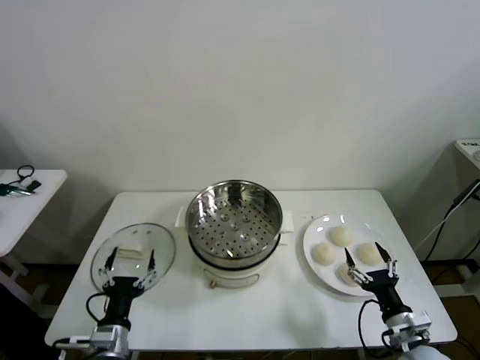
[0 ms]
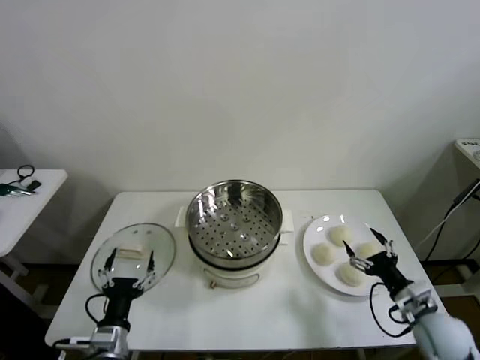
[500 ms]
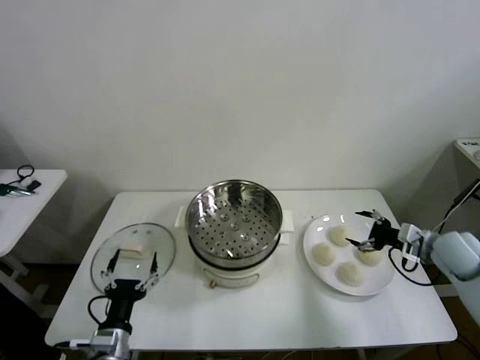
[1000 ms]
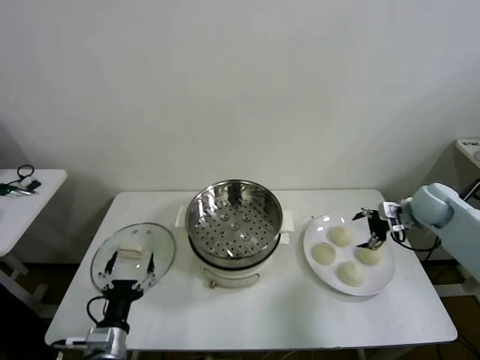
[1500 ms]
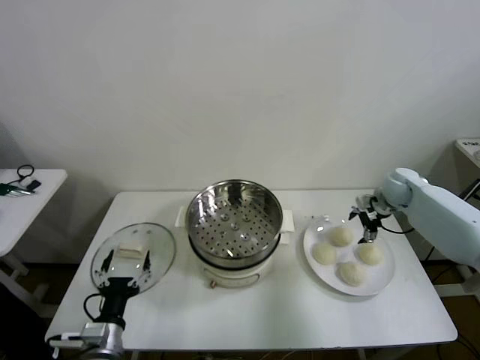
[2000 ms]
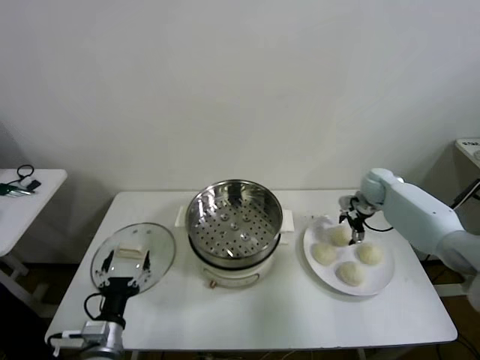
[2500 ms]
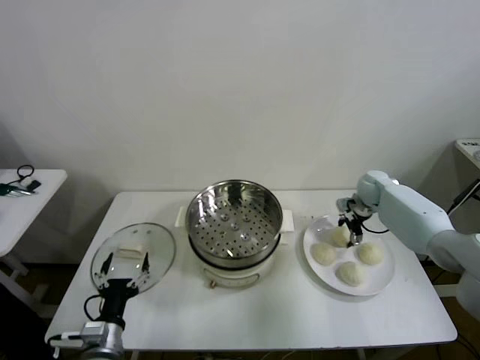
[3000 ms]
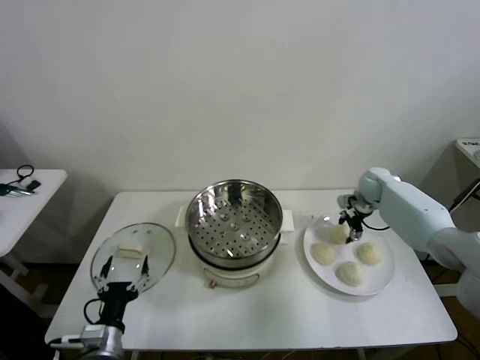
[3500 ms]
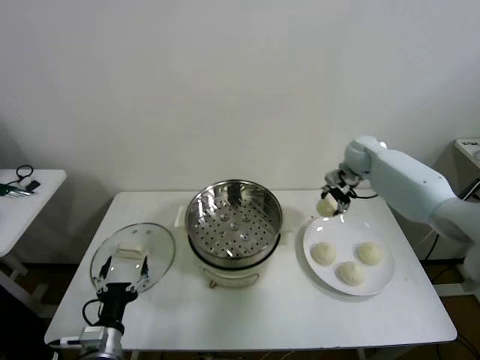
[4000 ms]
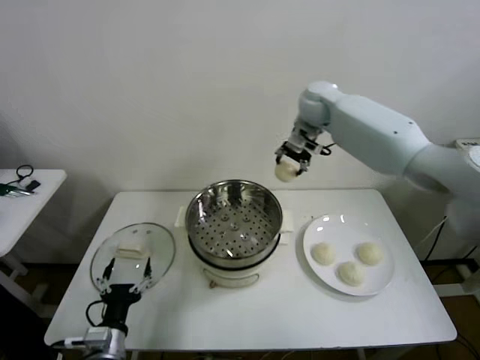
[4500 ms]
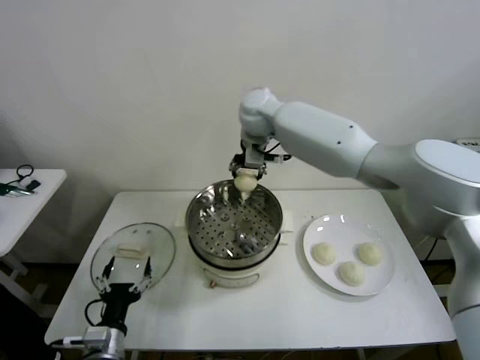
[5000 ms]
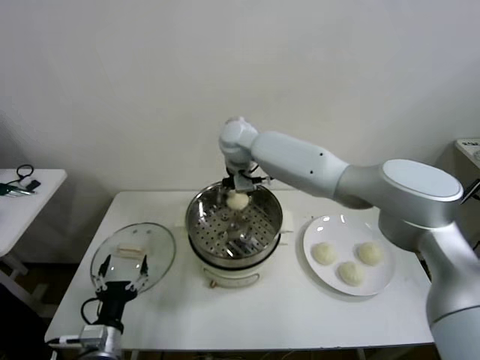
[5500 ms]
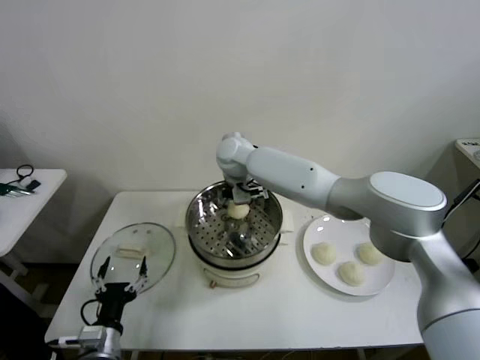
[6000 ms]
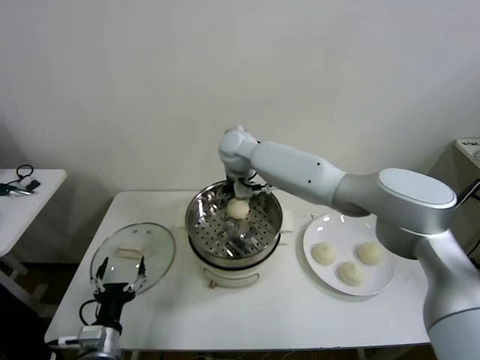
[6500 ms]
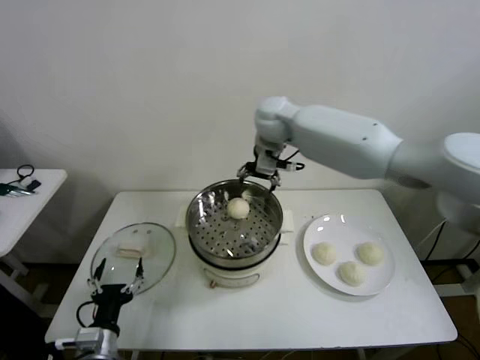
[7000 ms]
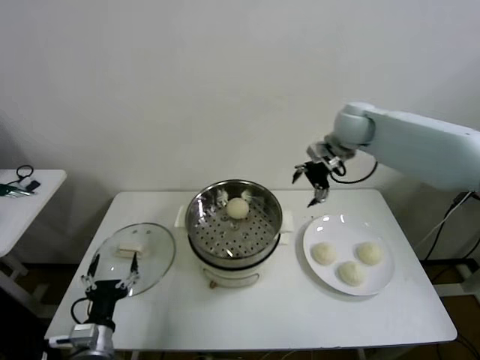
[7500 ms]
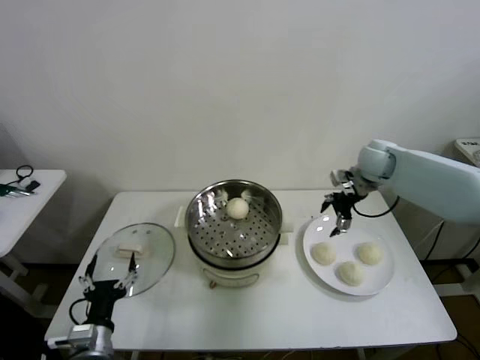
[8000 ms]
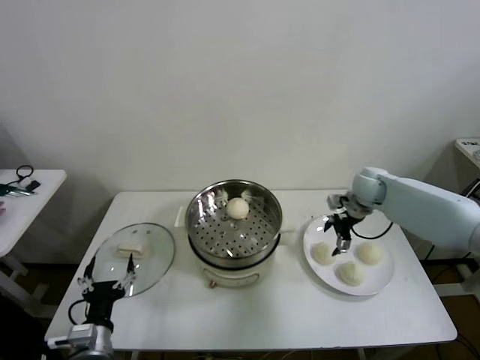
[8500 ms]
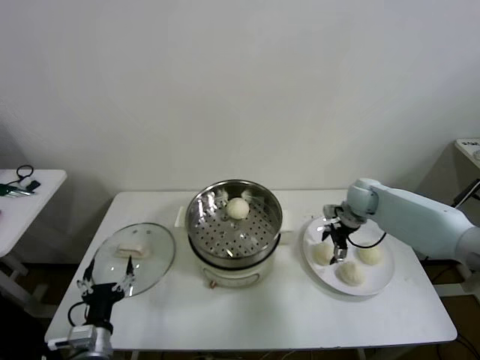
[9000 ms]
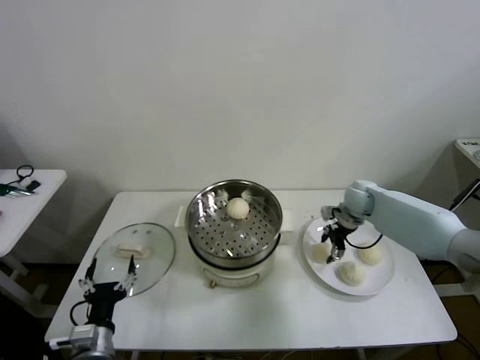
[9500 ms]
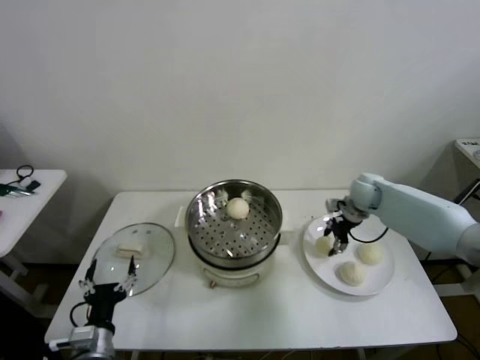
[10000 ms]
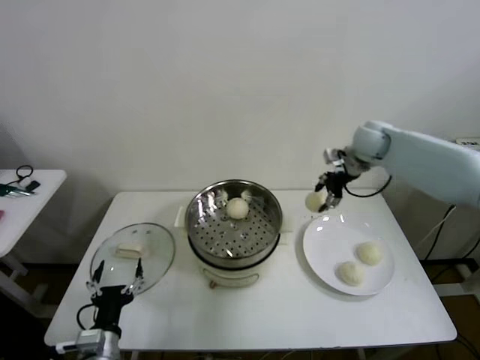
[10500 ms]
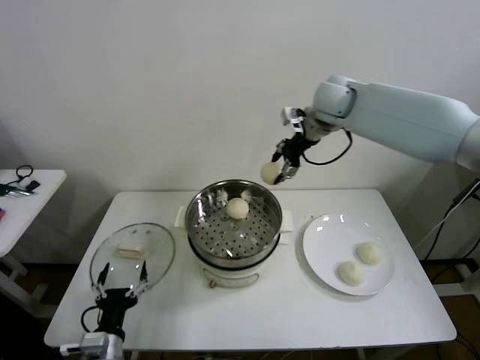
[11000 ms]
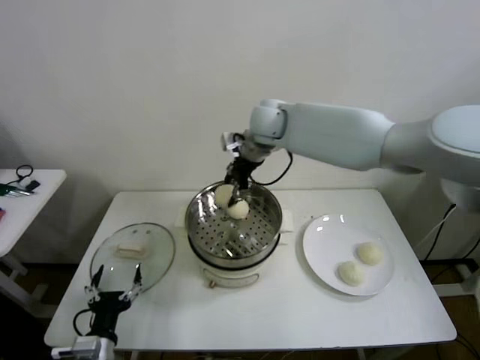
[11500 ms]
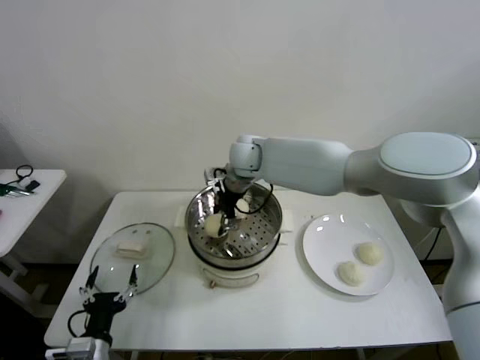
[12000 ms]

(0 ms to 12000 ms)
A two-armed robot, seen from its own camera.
Step, 0 ms - 3000 ms: Grasp the baozi in the plate with right gripper.
Step, 3500 ms - 6000 ms: Place the baozi on the steamer with right gripper.
Step, 6500 ms - 9500 ms: Grasp the baozi in the plate with right gripper.
2000 ms - 4000 ms: The right gripper heads to the left, upward and forward, covering some 15 cm, and closes its fingers.
4000 ms - 6000 ms: The right gripper travels to the left by some 30 cm, and opens its fingers.
6000 ms - 8000 ms: The right gripper goes roughly 35 cm to the right.
8000 ms - 10000 ms: The right gripper is displaced downward by about 10 cm, and closes its fingers.
10000 ms - 12000 ms: The right gripper is displaced to the left by about 30 cm.

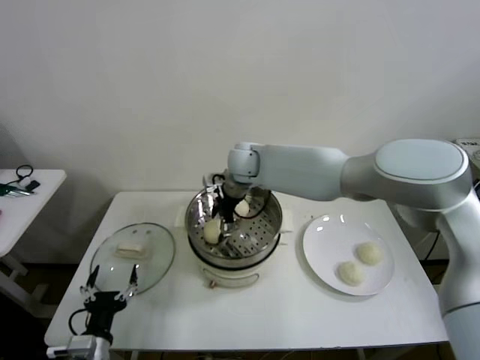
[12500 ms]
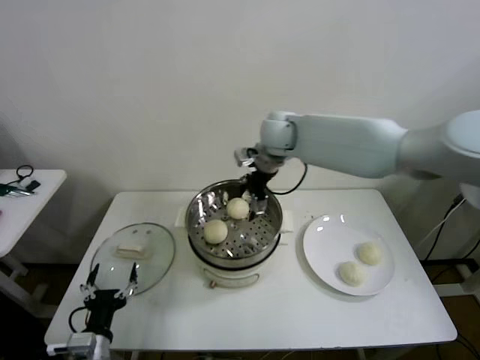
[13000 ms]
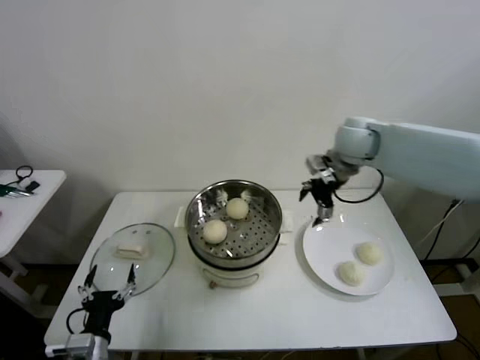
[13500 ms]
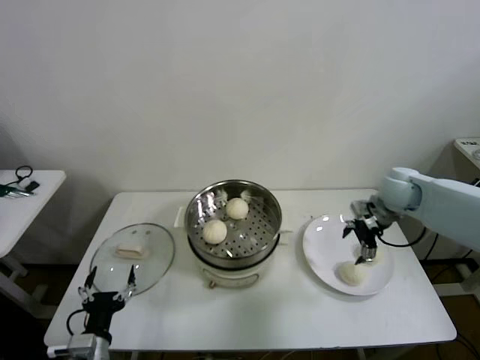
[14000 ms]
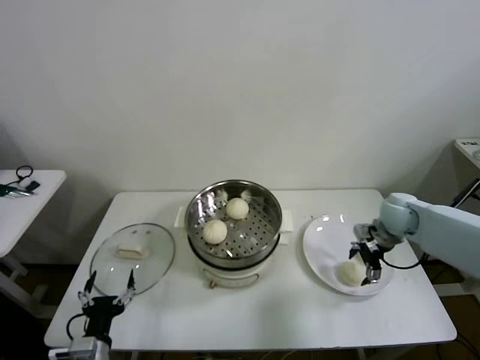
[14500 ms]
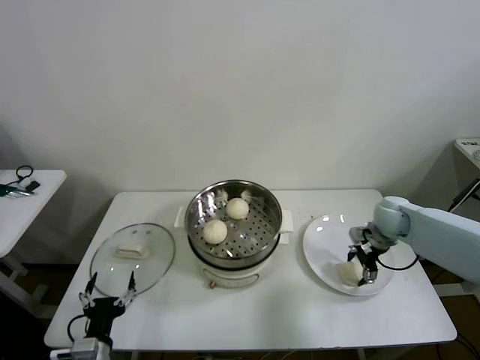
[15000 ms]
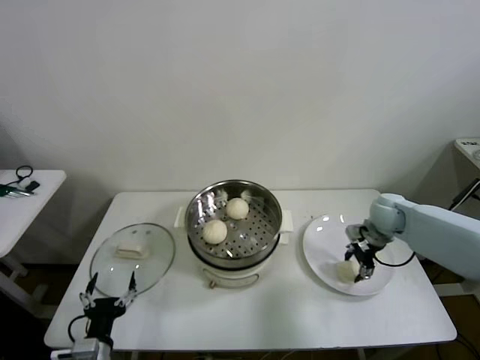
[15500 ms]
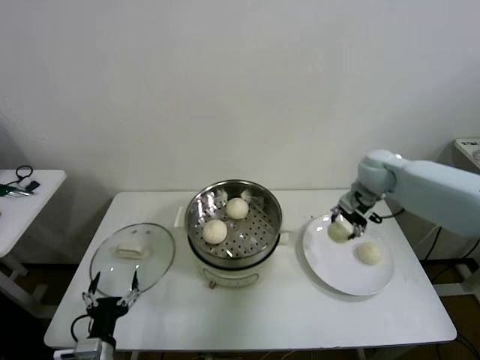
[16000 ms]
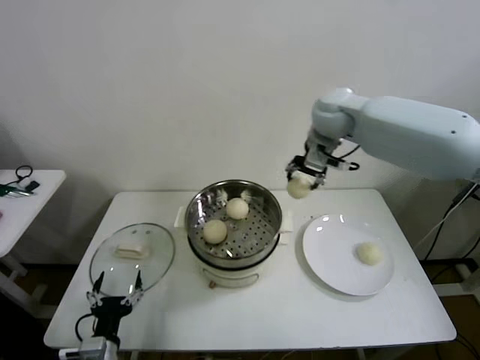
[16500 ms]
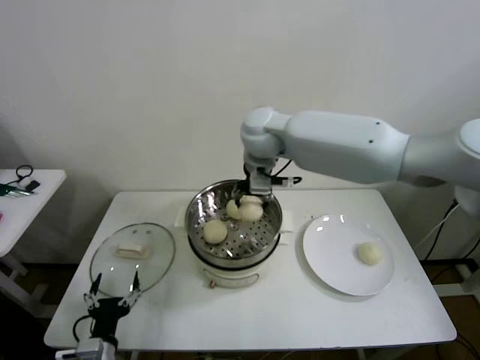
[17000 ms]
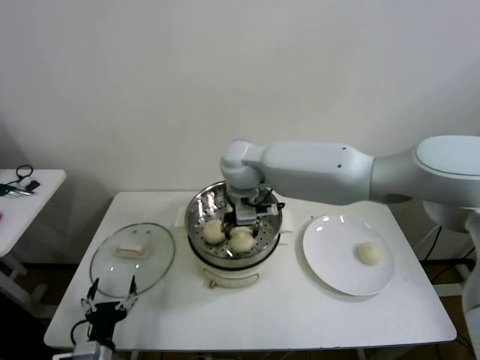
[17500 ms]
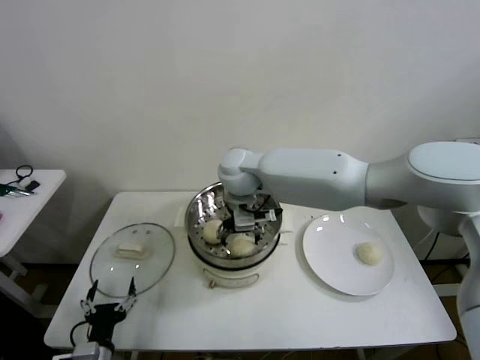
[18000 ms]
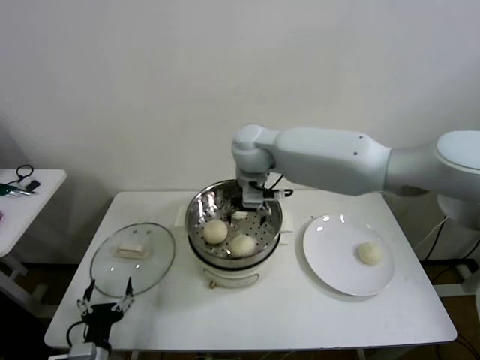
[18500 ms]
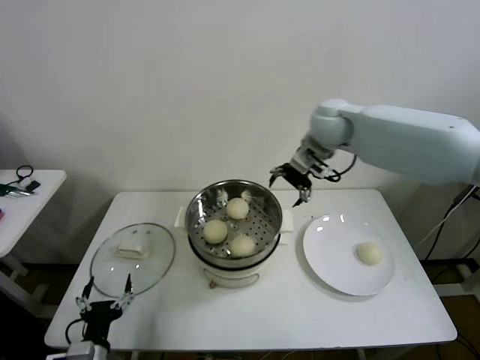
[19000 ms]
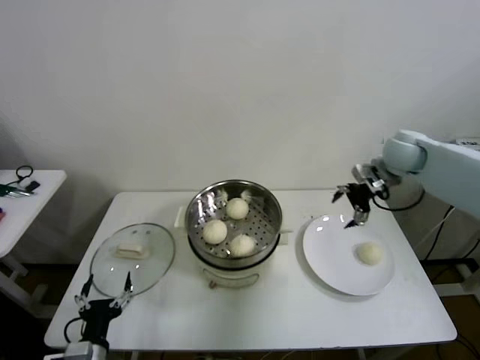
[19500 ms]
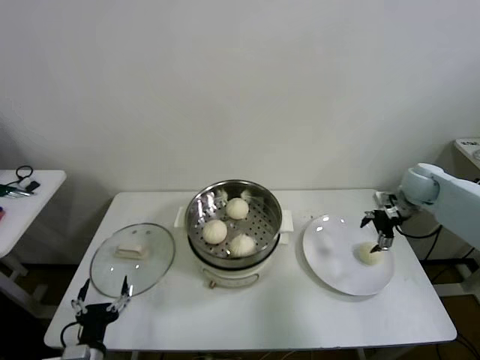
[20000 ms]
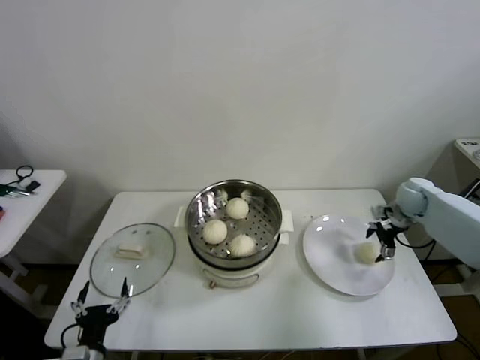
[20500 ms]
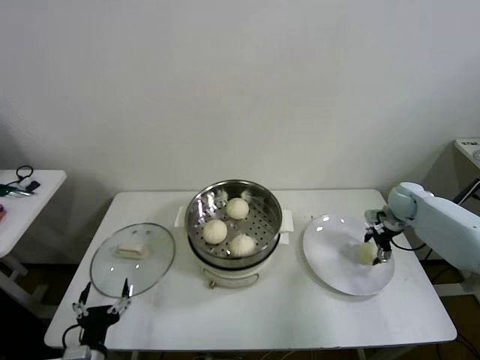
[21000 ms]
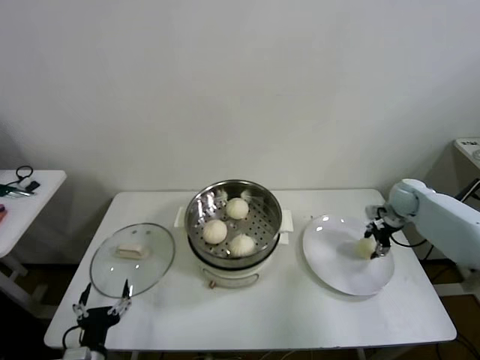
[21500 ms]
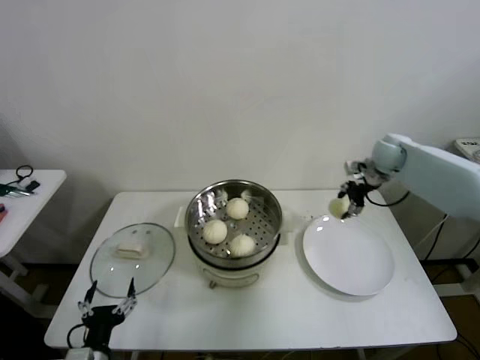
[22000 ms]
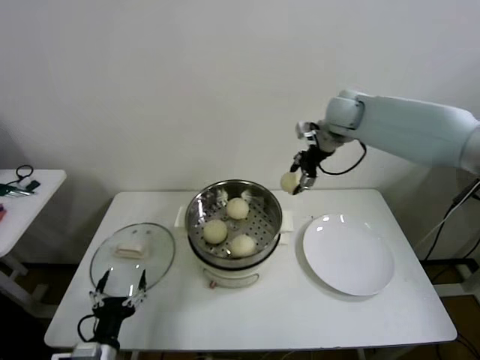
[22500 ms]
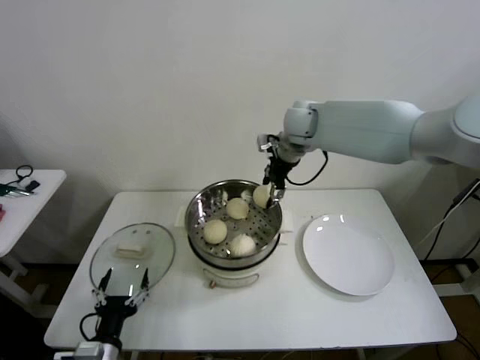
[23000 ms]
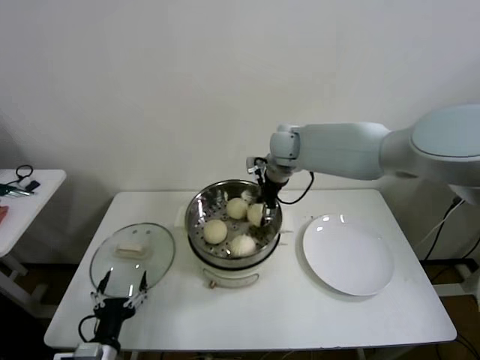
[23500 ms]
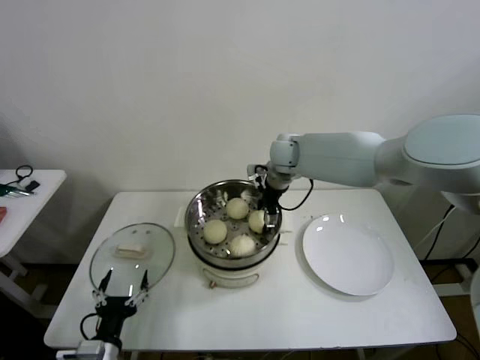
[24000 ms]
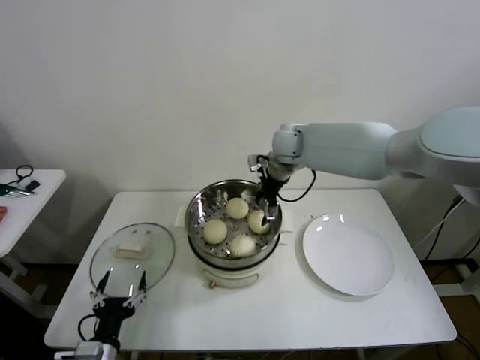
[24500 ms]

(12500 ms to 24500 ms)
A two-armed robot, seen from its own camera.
Step, 12500 ms - 15000 ms: Grasp the baozi in the plate with right gripper.
Step, 15500 ms - 17500 ms: Place the baozi on the steamer with right gripper.
Step, 18000 ms - 21000 ms: Grasp the baozi in the plate with right gripper.
Step, 21500 ms - 23500 ms: Place the baozi on the steamer with right gripper.
12500 ms - 14500 ms: The right gripper shifts approximately 35 cm to the right.
14500 ms - 16500 ms: The right gripper heads upward and to the left, covering approximately 30 cm, and closes.
16500 ms - 18500 ms: The right gripper is displaced to the left and downward by some 15 cm, and opens its fingers.
18500 ms - 20500 ms: The right gripper travels to the right and downward by about 50 cm.
20500 ms - 22500 ms: The right gripper travels to the left and upward by approximately 30 cm, and closes its fingers.
22500 ms - 24500 ms: The right gripper shifts some 15 cm to the left and downward, and opens its fingers.

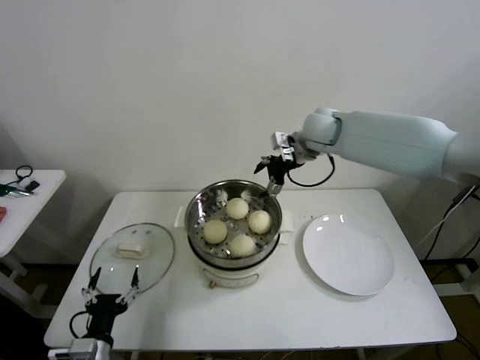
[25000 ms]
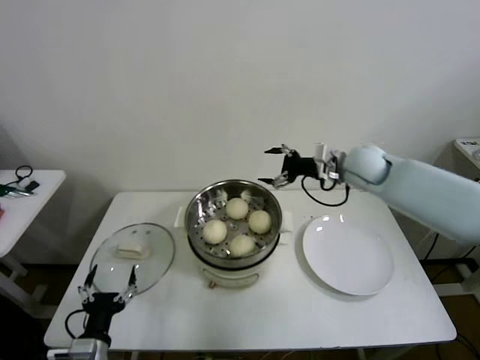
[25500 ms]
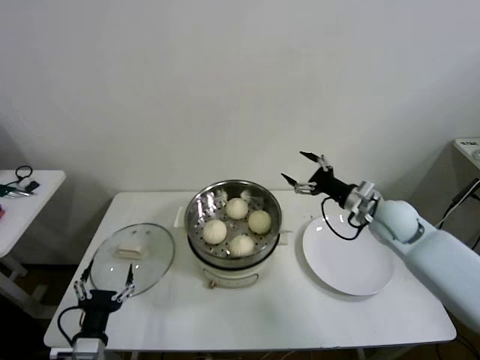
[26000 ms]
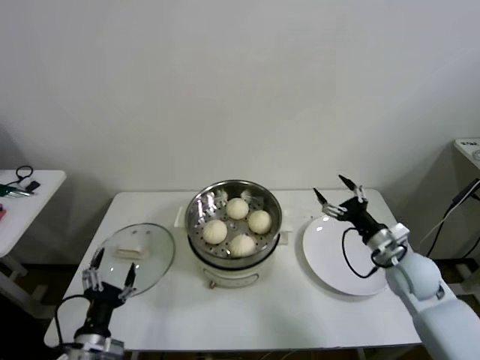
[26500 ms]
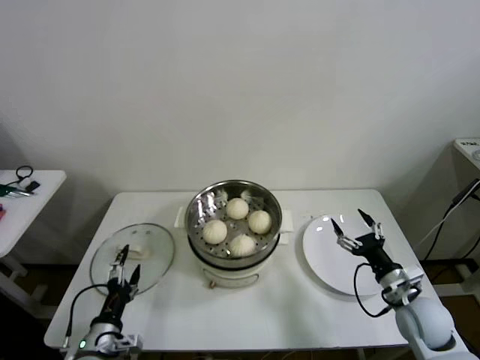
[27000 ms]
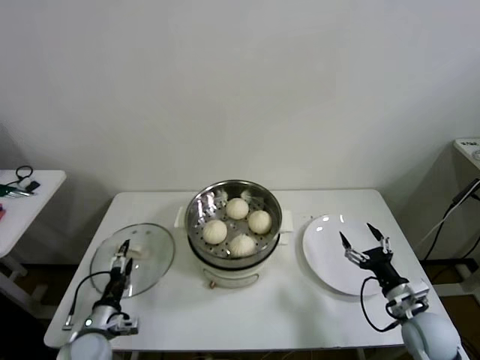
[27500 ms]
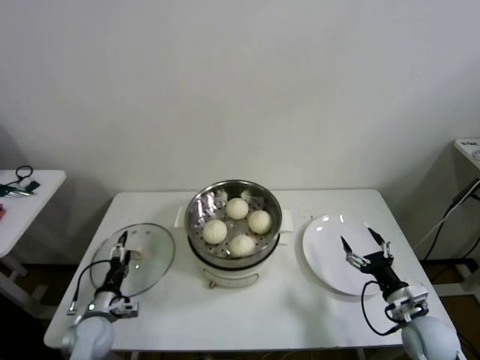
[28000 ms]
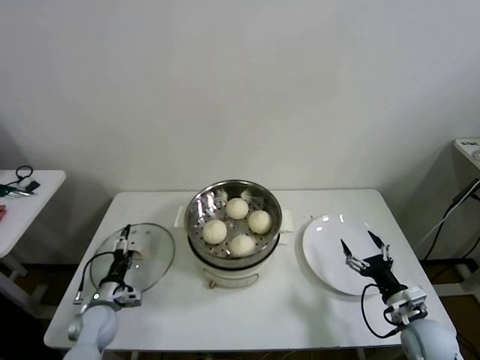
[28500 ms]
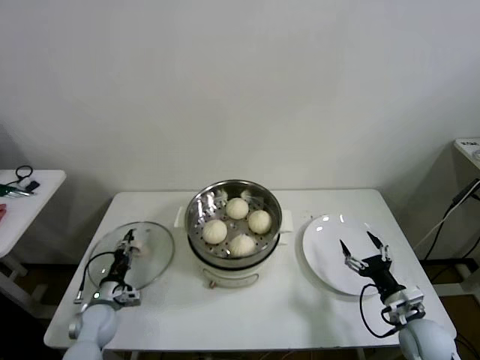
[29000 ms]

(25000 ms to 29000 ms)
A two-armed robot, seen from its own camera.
25000 ms - 27000 ms: The right gripper travels backward, downward and to the right by some 50 cm.
27000 ms - 29000 ms: The left gripper travels forward, downward and to the left by about 15 cm, and closes up. Meanwhile the right gripper moves roughly 5 cm.
